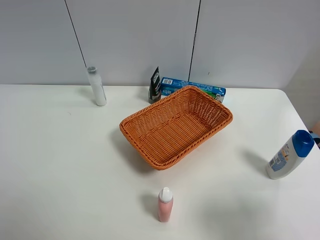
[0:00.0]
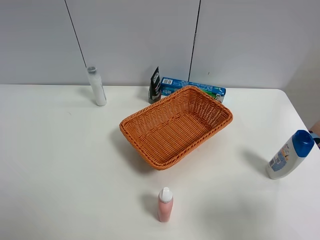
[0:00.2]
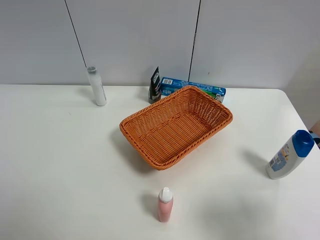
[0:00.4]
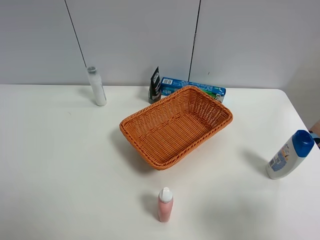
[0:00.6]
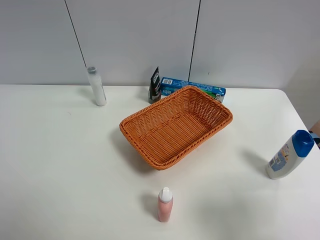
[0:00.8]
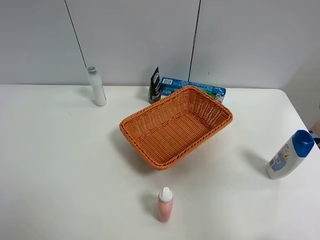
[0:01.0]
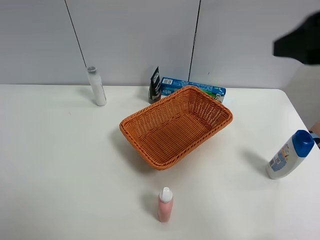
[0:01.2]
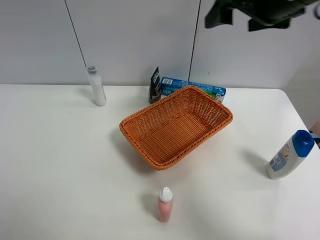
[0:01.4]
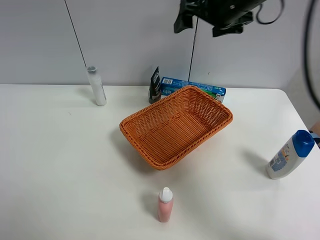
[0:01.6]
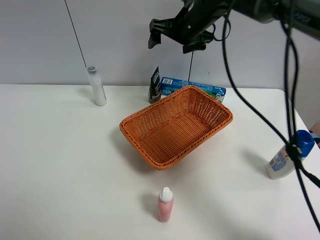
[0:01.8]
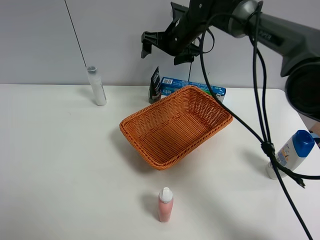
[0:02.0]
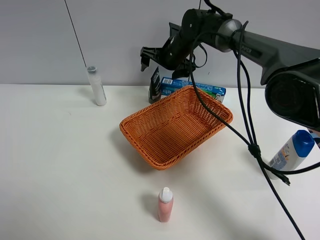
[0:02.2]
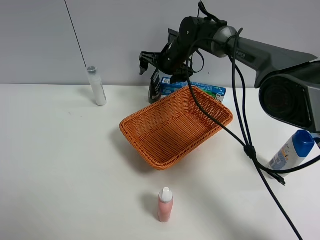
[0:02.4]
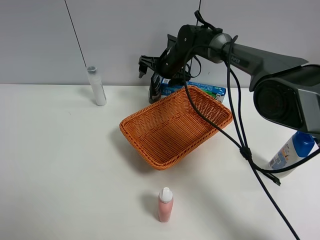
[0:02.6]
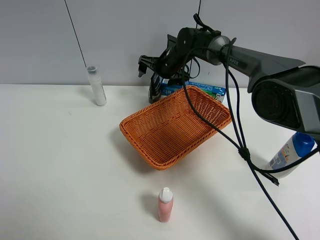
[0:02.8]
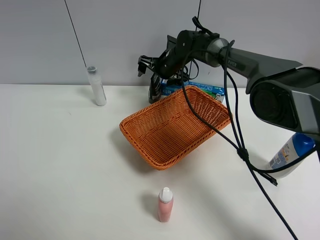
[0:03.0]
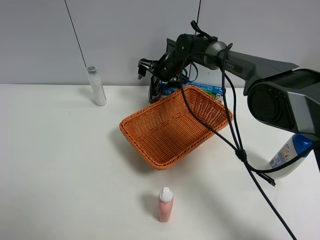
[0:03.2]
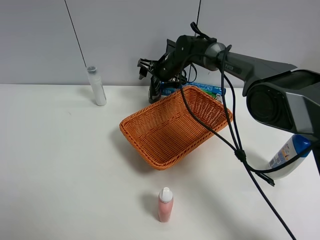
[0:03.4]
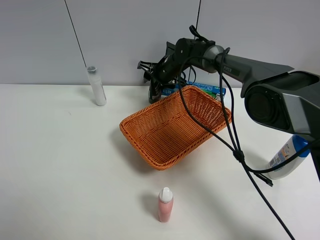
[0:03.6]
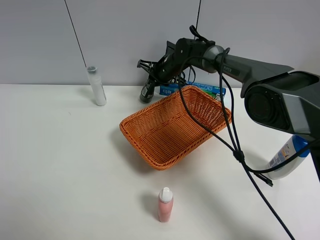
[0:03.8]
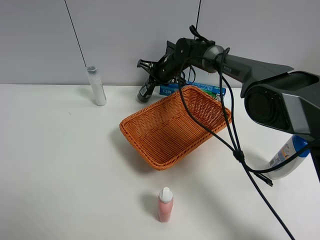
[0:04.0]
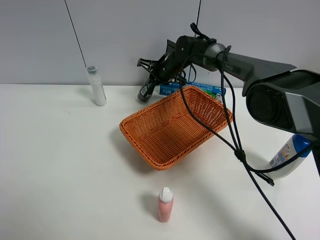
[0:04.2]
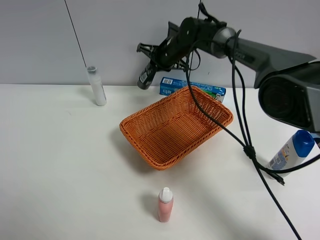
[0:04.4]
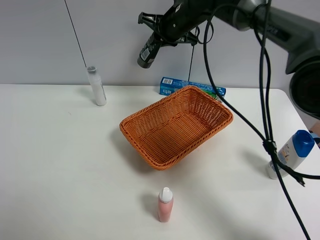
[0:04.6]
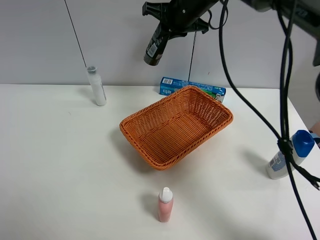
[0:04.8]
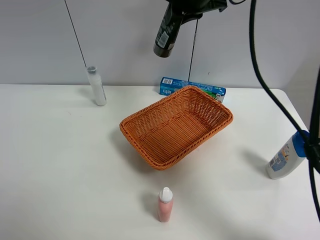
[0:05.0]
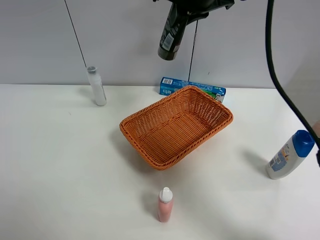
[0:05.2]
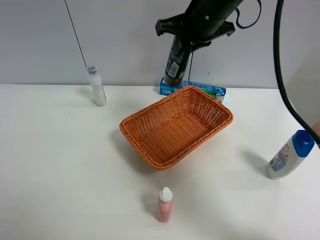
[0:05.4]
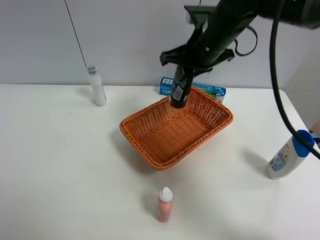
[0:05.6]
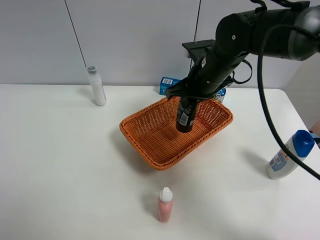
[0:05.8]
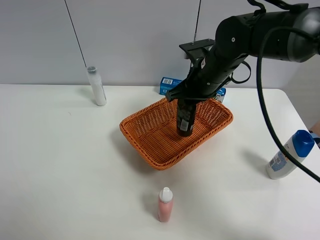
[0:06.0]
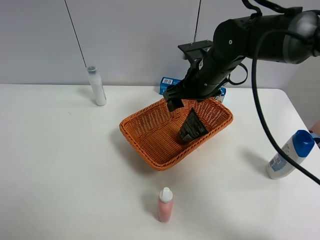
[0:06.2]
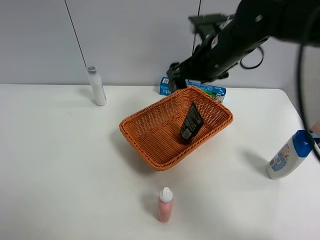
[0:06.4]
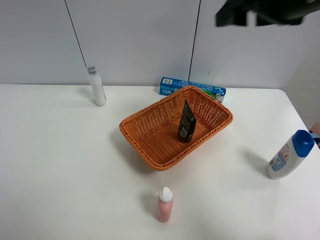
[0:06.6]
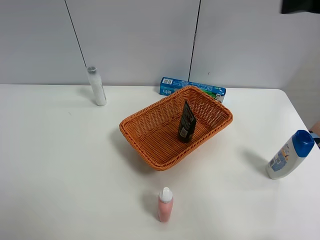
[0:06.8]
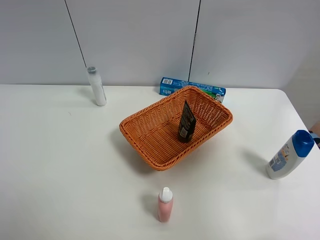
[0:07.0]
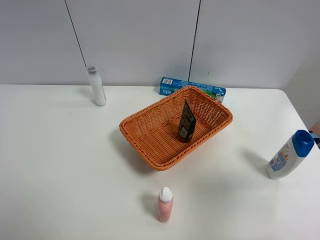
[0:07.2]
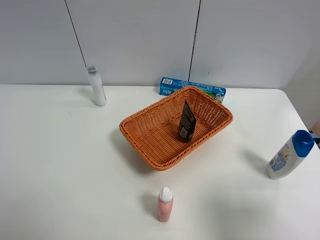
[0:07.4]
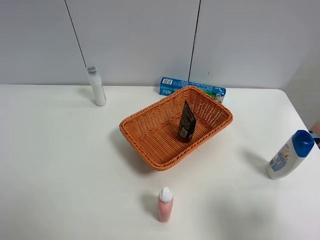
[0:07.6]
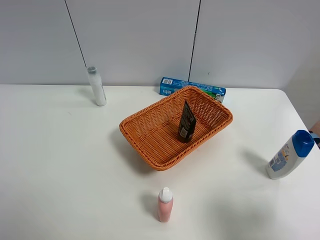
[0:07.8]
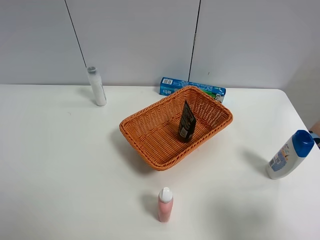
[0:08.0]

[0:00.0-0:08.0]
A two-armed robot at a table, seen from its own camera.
Task of the whole recording: Place the object closest to the toothpaste in the basket.
Step, 0:00.0 to 0:04.0: Grasp the soft facial cleanser with right gripper.
Step, 0:04.2 to 0:06.4: Place the soft facial cleanser in the basket with right gripper.
0:00.0 to 0:01.6: The right gripper goes some 40 cm forward and to the left.
0:01.6 to 0:03.2: The right gripper shifts about 20 cm downward, forward and to the left.
0:03.2 to 0:04.8: The right gripper travels upward by roughly 20 cm, and closes its fingers.
0:04.8 to 0:06.4: The right gripper moves up and down over about 15 cm, changing direction 2 times, and opens up.
0:06.4 to 0:08.0: The right gripper shifts approximately 35 cm backward and to the right.
